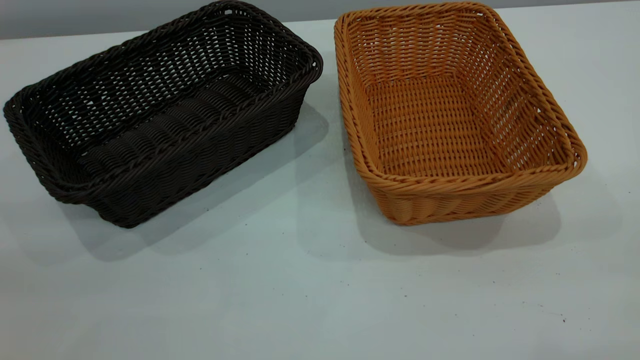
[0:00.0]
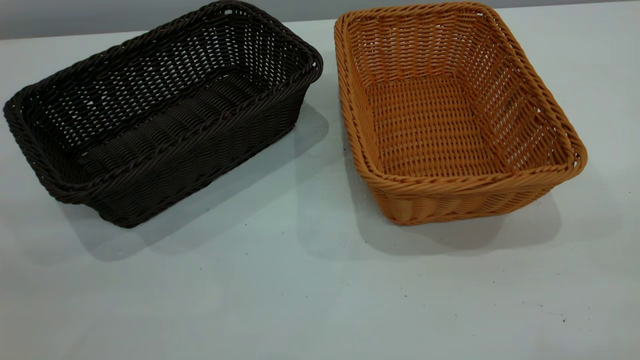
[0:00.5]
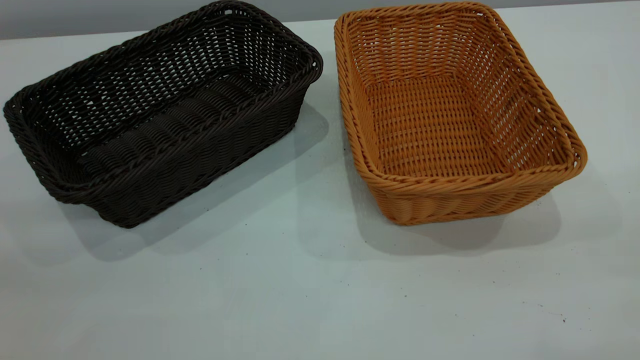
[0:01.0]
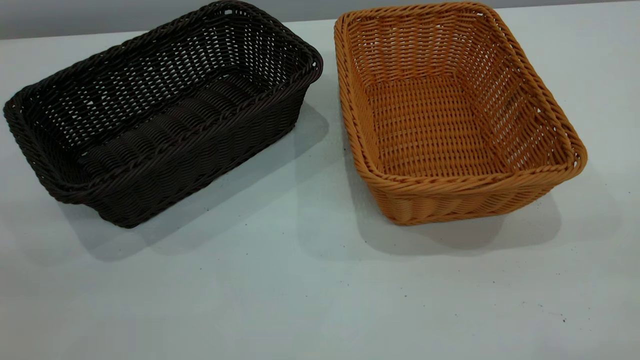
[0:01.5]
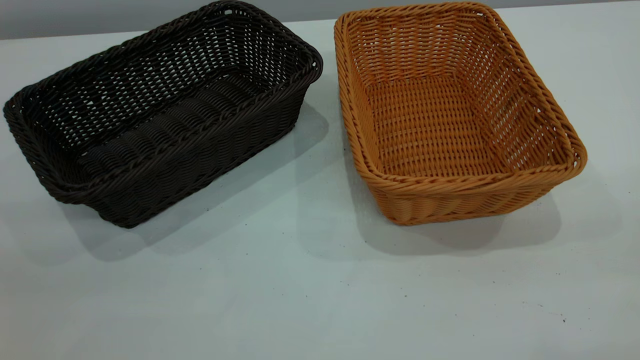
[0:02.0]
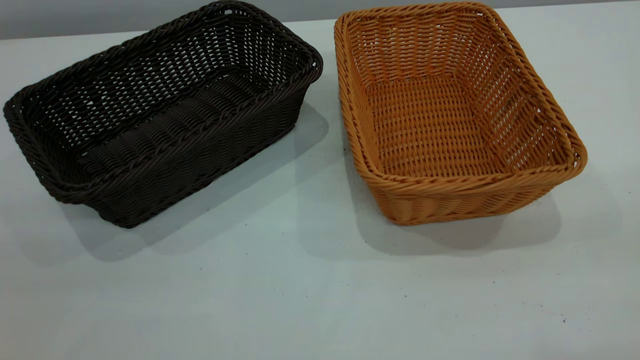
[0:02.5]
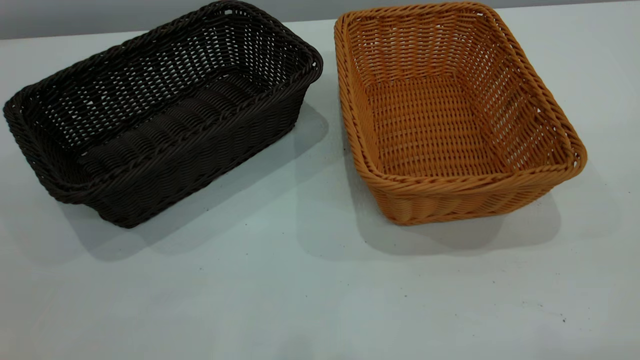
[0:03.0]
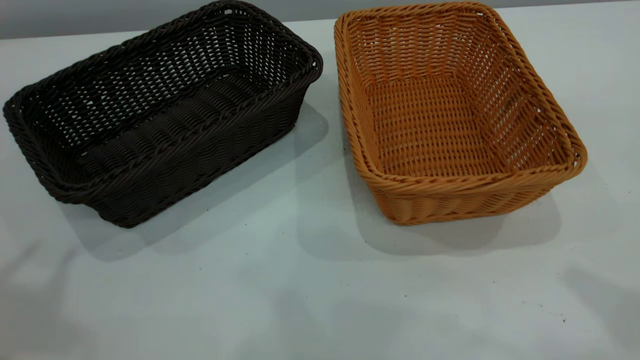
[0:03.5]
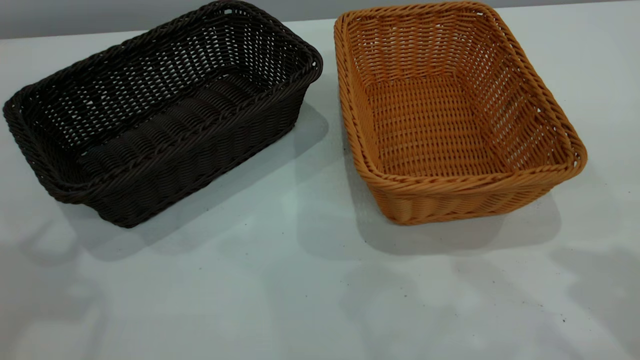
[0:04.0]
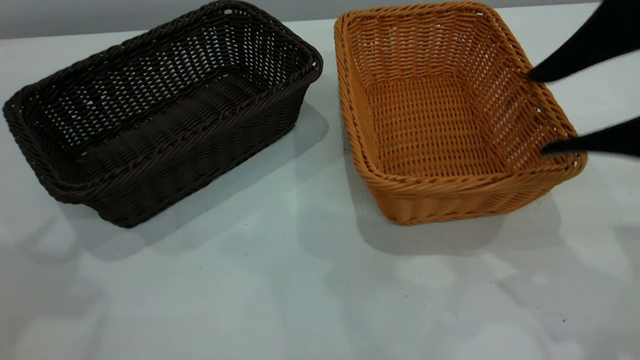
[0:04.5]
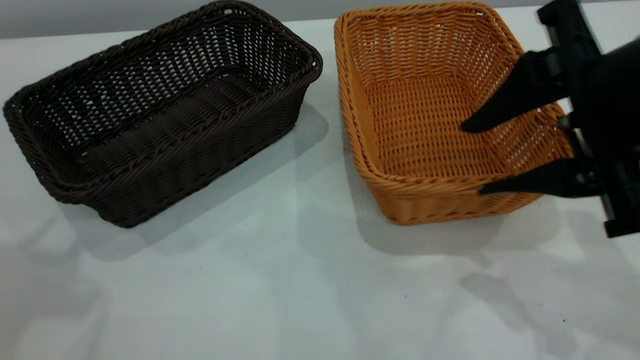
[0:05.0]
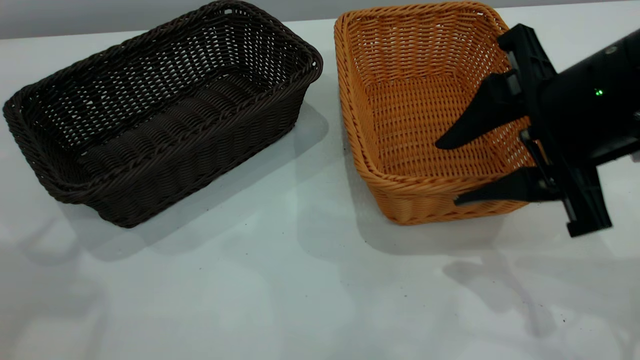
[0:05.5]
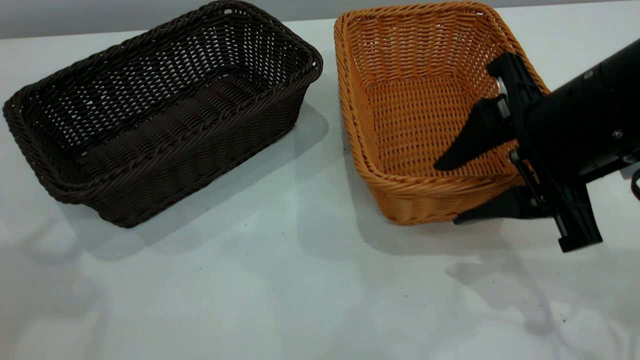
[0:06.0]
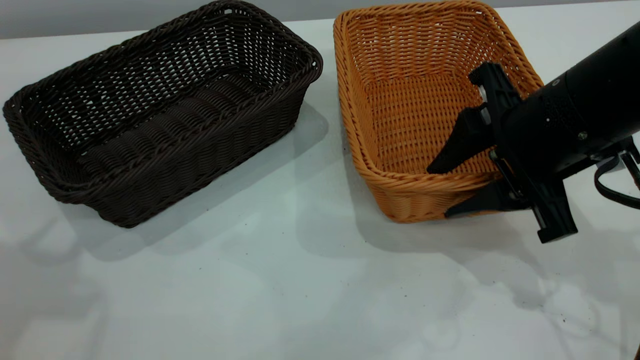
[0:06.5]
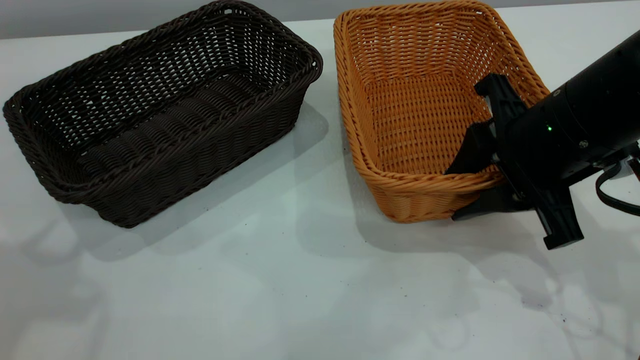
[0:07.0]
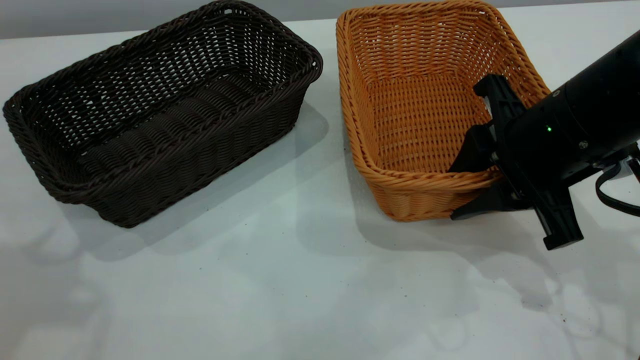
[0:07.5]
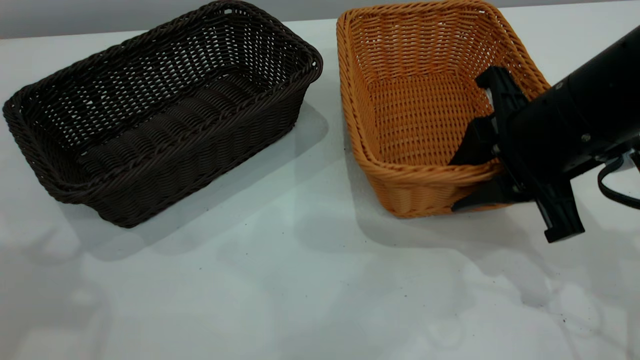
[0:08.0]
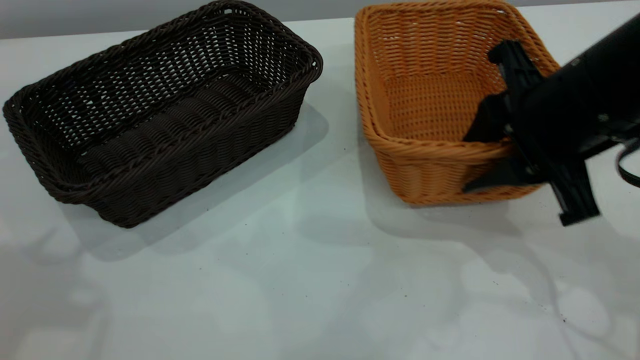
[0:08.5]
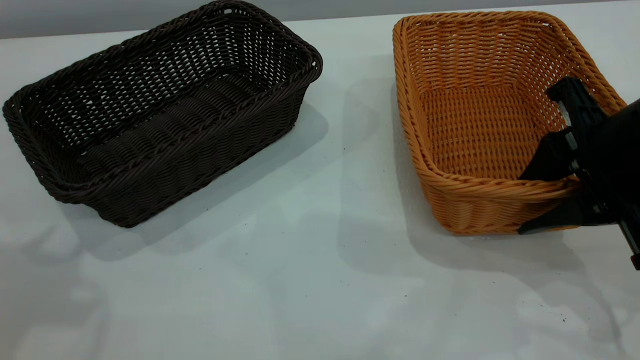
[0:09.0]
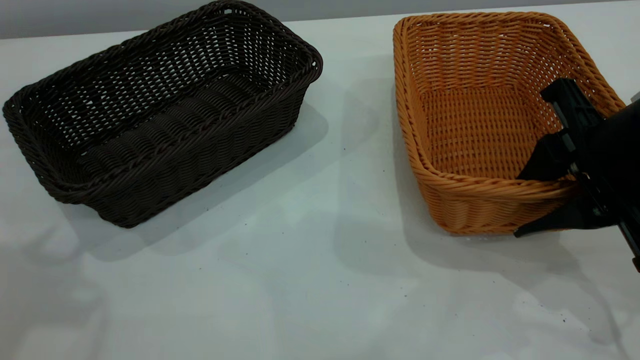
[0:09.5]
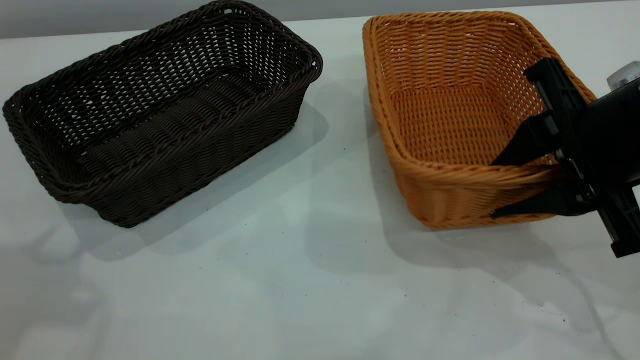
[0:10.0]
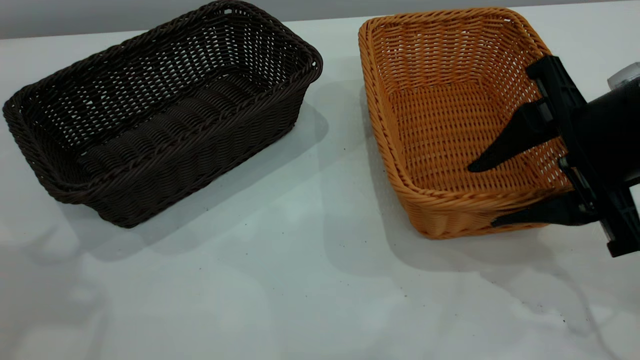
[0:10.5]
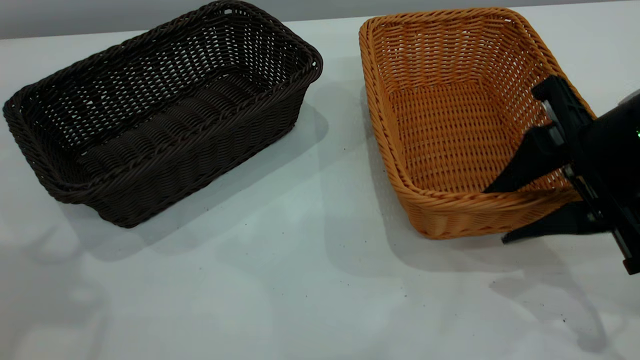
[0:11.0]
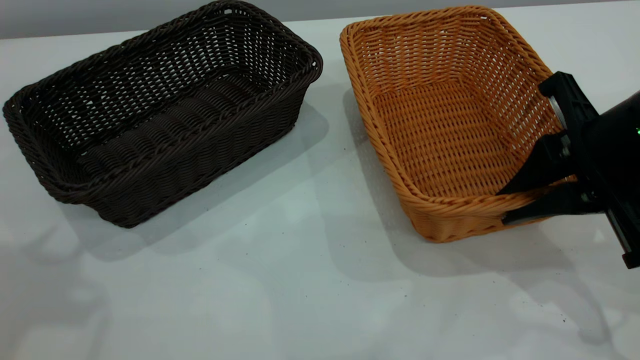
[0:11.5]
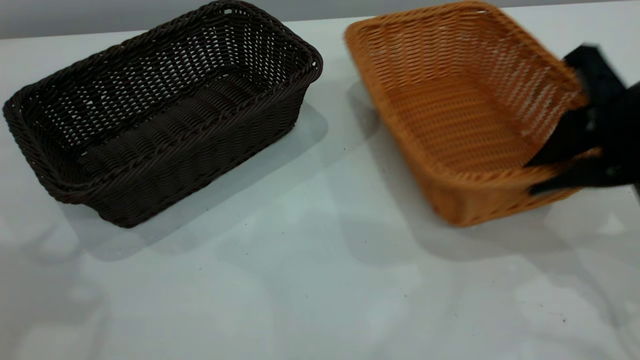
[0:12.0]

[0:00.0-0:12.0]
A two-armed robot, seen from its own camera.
Task of the whole recording: the left gripper grasp the black basket and place it in the center of the table, the right gripper grasp the brown basket and place it inside the black one.
0:04.0 to 0:06.0: The right gripper heads downward, to the left and forward, covering some 15 cm.
0:06.0 to 0:08.0: The right gripper closes up.
0:08.0 to 0:10.0: The grippers make only small movements.
0:10.0 to 0:12.0: The right gripper closes.

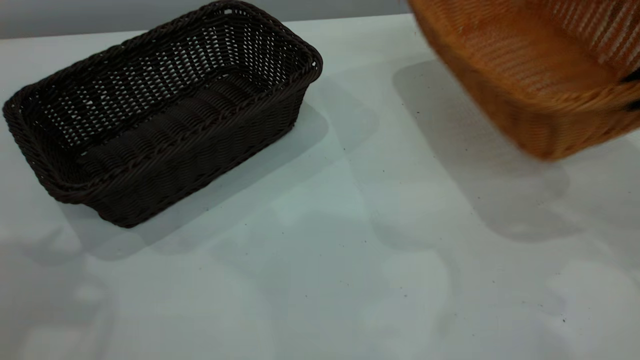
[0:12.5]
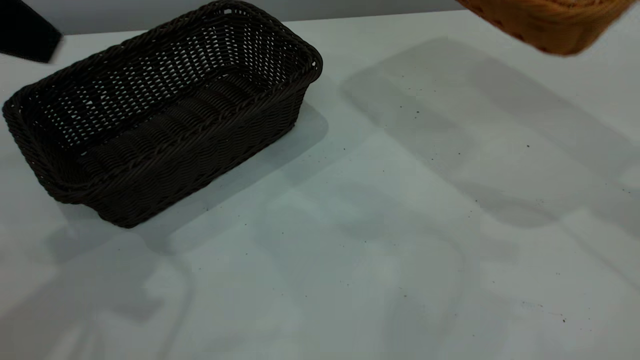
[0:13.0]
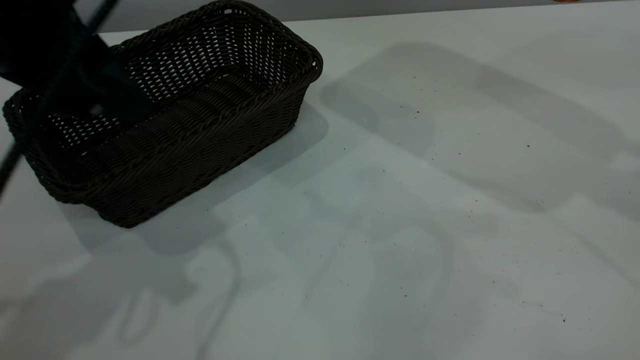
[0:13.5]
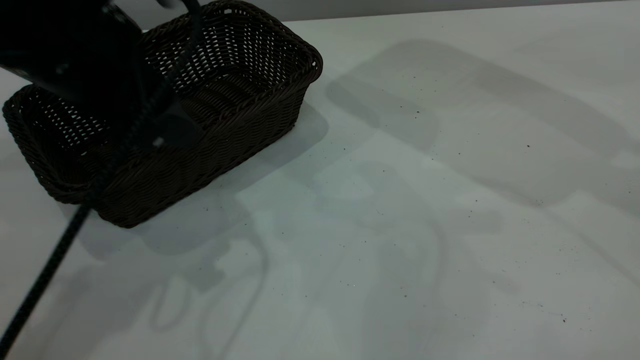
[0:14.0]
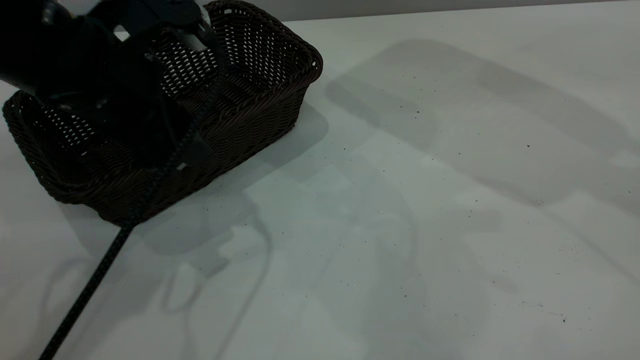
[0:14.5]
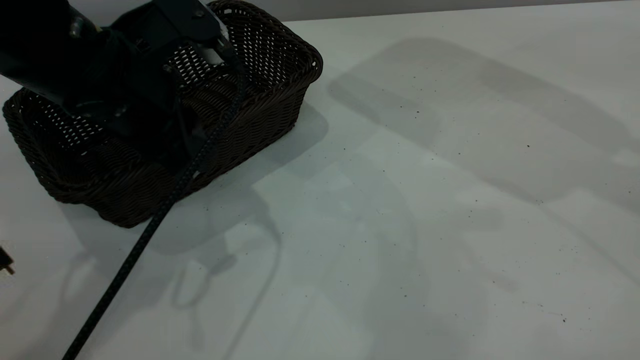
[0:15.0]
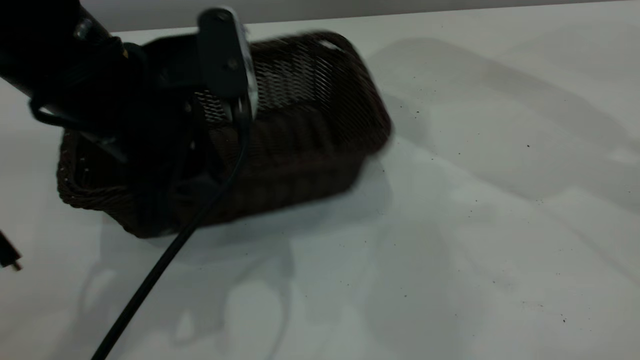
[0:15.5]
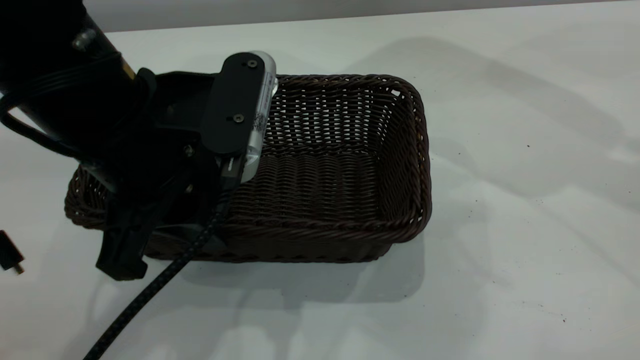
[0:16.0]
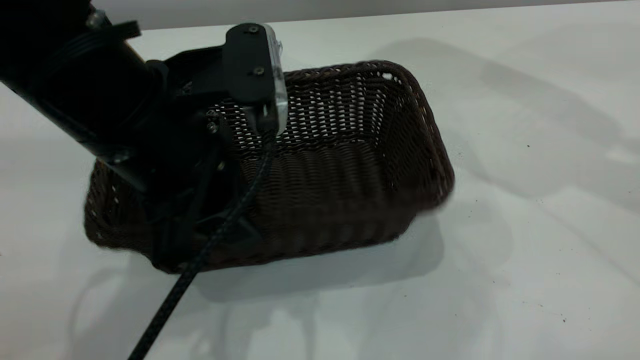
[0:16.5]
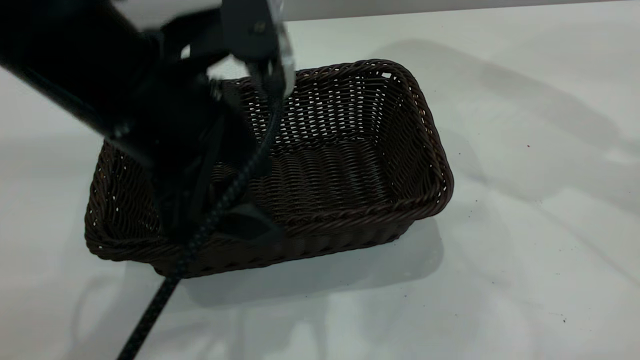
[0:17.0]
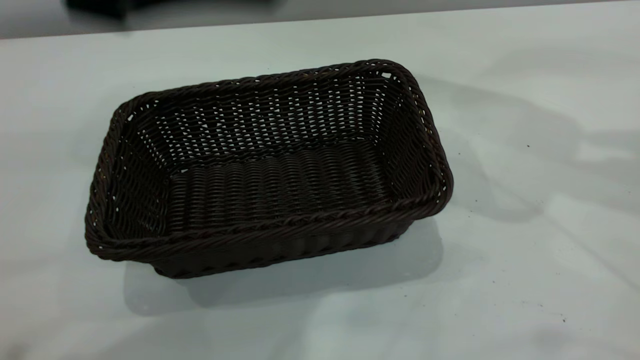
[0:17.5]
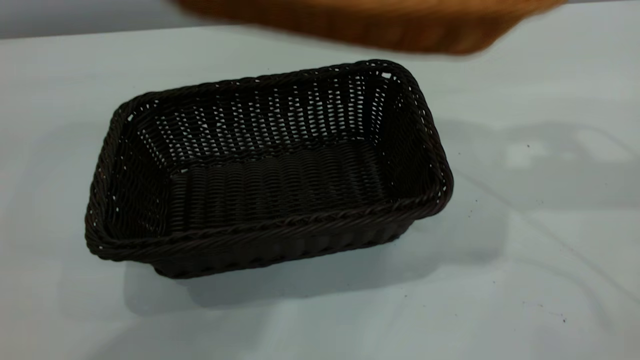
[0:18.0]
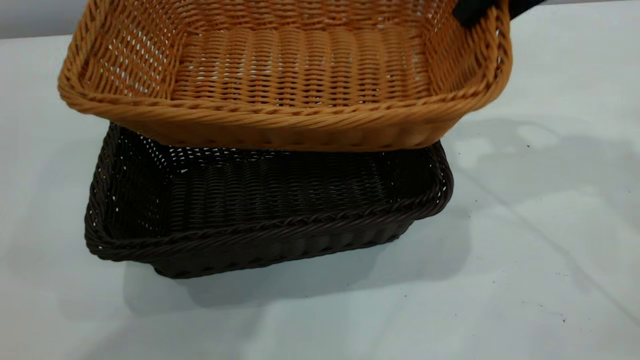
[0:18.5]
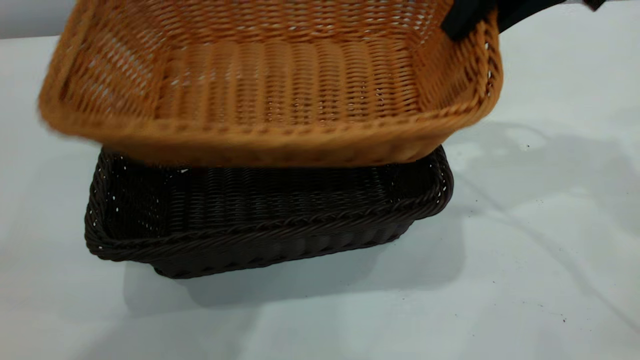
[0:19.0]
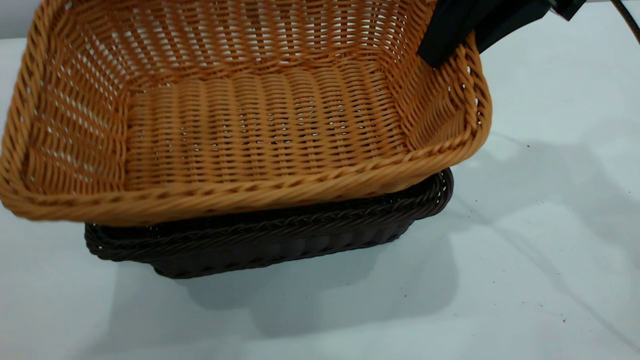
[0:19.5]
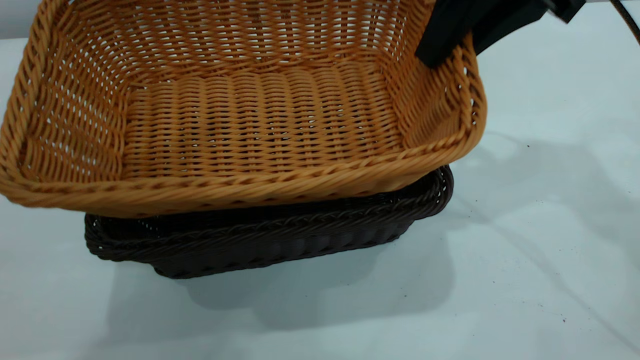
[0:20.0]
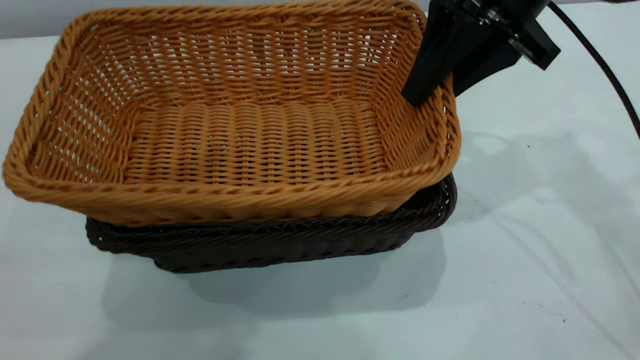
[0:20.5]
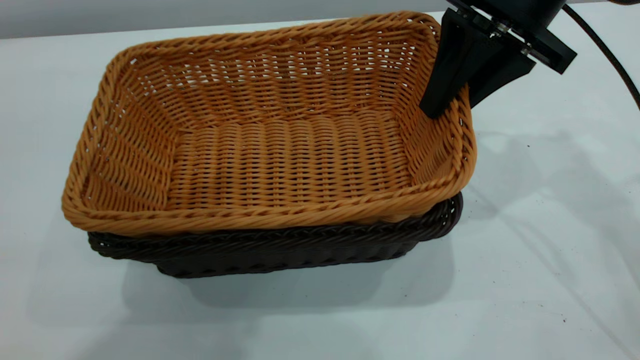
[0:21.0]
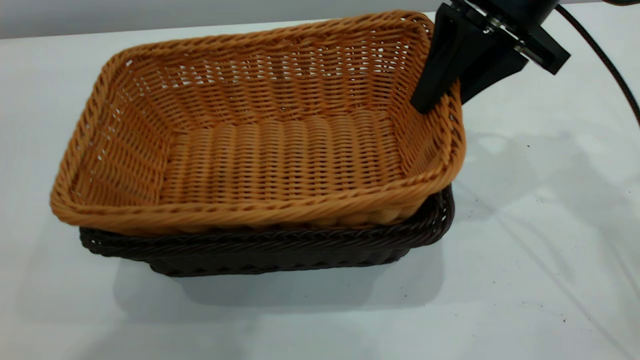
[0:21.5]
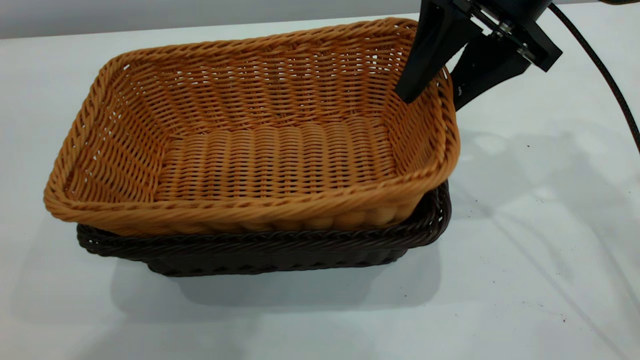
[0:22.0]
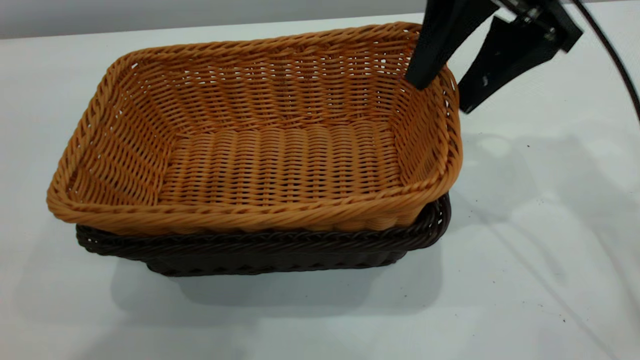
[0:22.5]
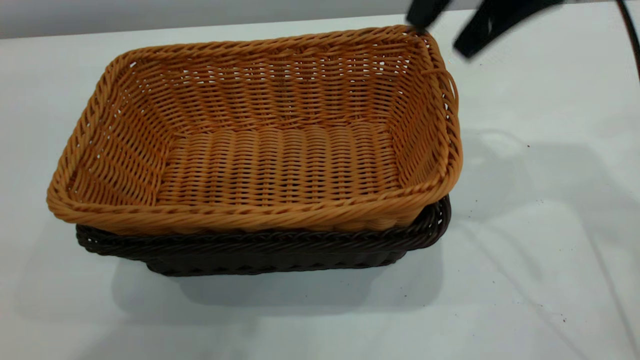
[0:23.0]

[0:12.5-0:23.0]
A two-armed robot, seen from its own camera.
Task of the whole recording: the left gripper grasp the black basket and place it in the center of the table, the right gripper grasp the brown basket and place it inside the black one.
Step, 0:12.5 to 0:17.0: Move the dark basket to the center of view.
Step, 0:17.5 to 0:23.0: Place the light basket on the dark basket.
0:12.5 to 0:14.5: The right gripper moves upward, some 10 cm; the left gripper shifts approximately 25 cm downward, to the right and forward.
0:14.5 to 0:16.5: The left gripper is displaced backward and to the right by about 10 cm, and closes.
0:16.5 to 0:19.0: The right gripper goes roughly 15 cm to the left, downward and forward. The left gripper is displaced upward by roughly 25 cm, and opens its fingers.
0:19.0 to 0:21.0: The right gripper shifts by roughly 5 cm.
0:21.0 to 0:23.0: The right gripper heads upward, covering some 10 cm, and opens its fingers.
